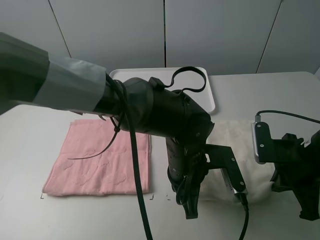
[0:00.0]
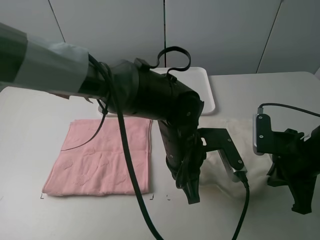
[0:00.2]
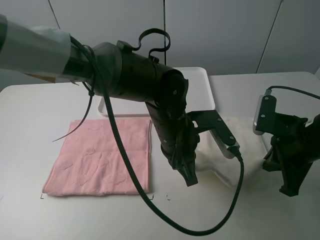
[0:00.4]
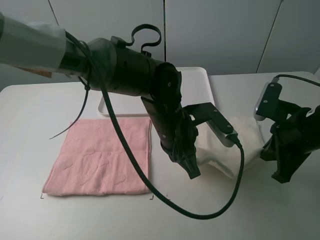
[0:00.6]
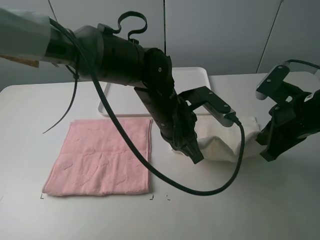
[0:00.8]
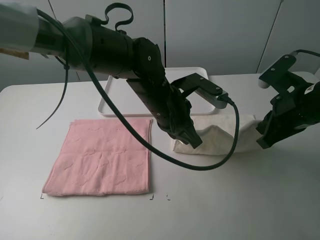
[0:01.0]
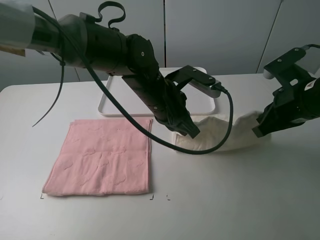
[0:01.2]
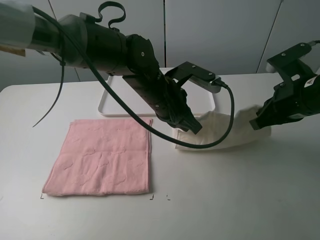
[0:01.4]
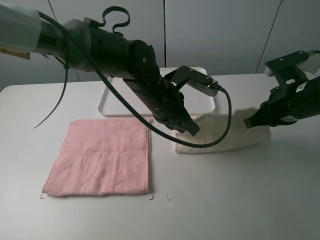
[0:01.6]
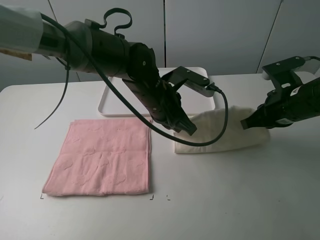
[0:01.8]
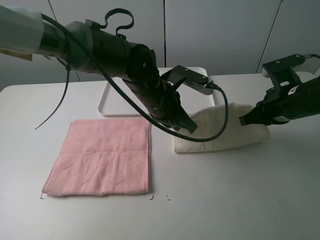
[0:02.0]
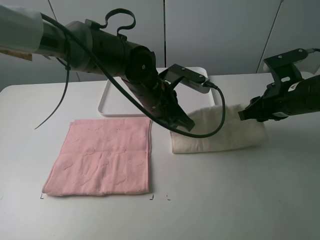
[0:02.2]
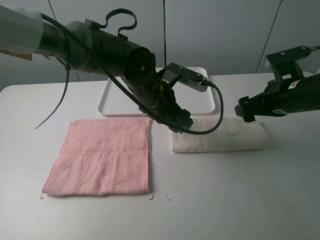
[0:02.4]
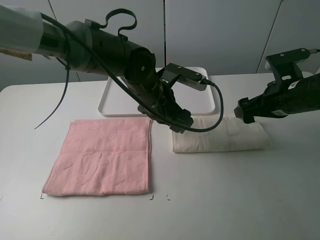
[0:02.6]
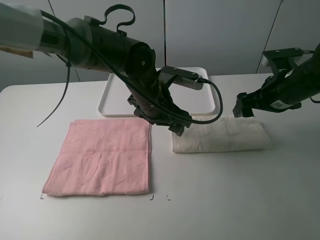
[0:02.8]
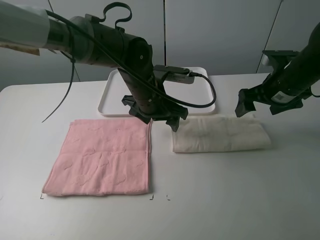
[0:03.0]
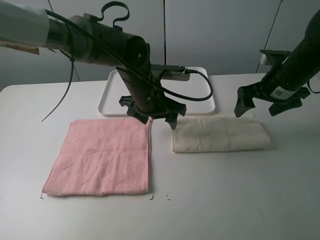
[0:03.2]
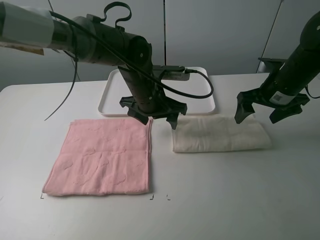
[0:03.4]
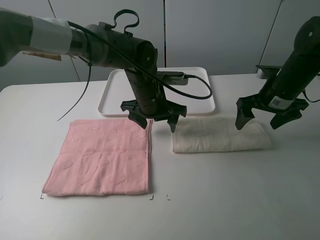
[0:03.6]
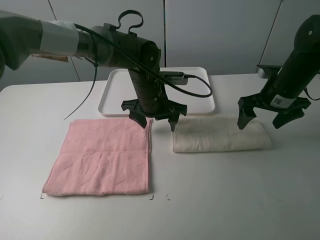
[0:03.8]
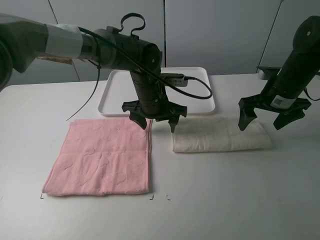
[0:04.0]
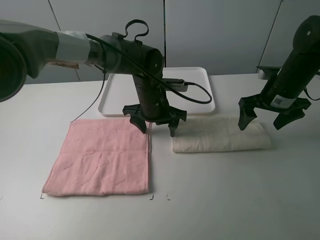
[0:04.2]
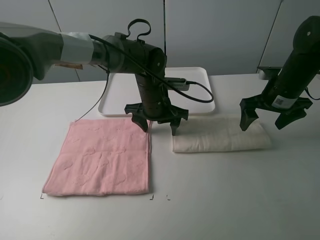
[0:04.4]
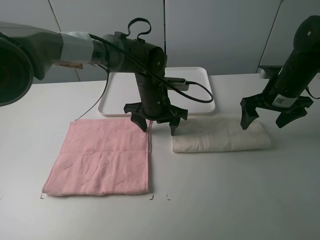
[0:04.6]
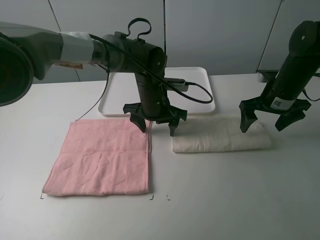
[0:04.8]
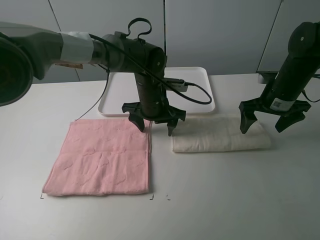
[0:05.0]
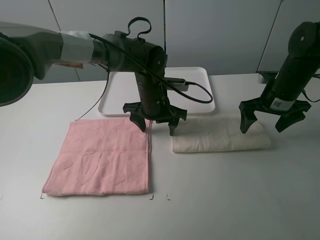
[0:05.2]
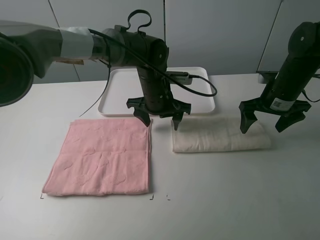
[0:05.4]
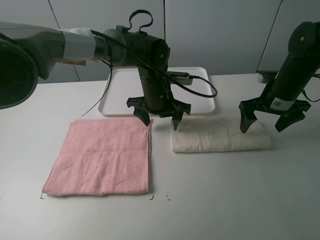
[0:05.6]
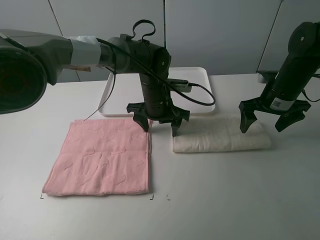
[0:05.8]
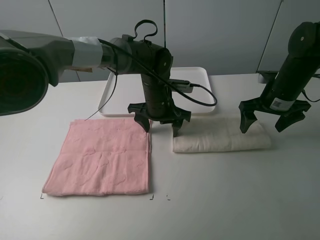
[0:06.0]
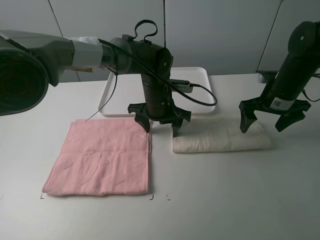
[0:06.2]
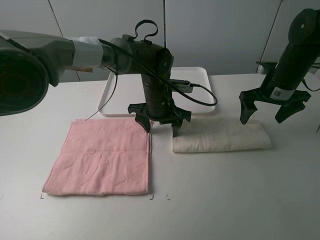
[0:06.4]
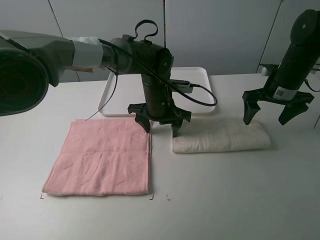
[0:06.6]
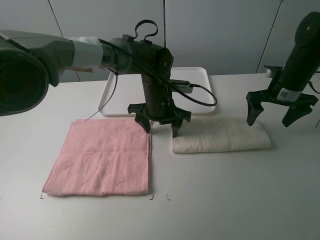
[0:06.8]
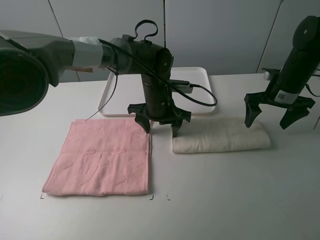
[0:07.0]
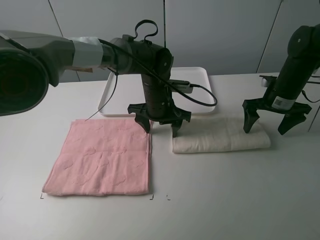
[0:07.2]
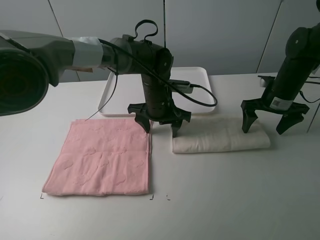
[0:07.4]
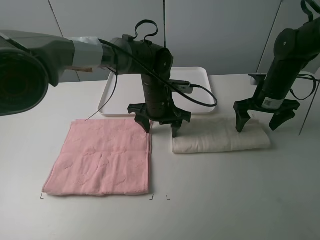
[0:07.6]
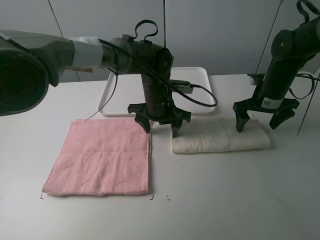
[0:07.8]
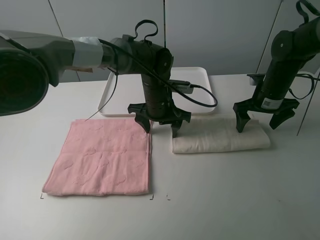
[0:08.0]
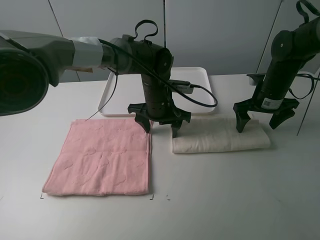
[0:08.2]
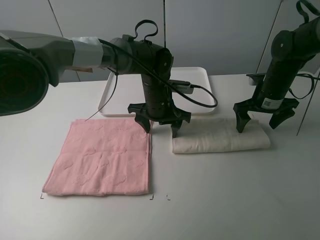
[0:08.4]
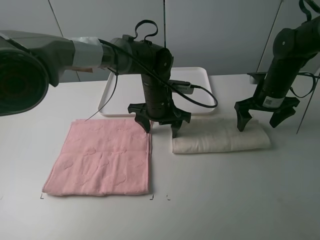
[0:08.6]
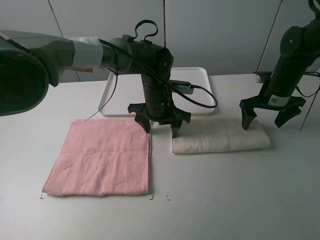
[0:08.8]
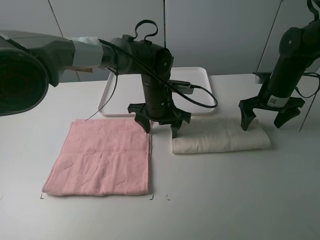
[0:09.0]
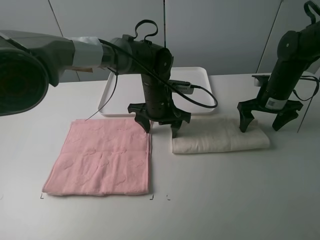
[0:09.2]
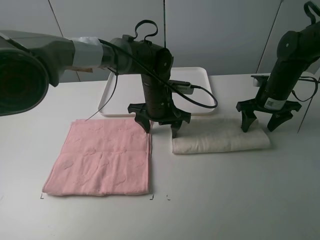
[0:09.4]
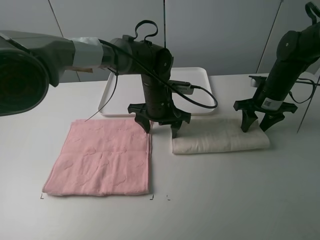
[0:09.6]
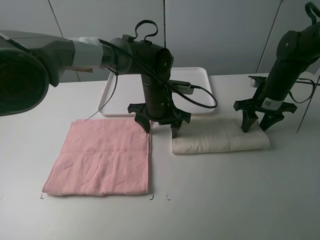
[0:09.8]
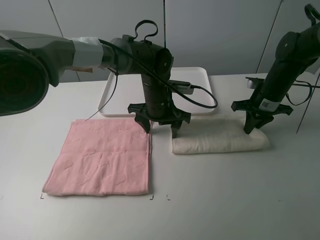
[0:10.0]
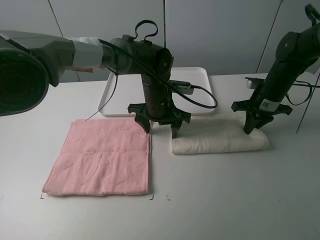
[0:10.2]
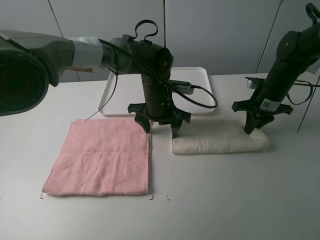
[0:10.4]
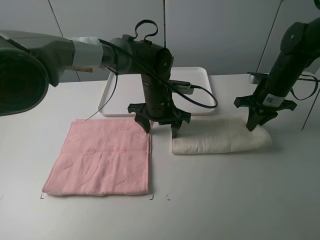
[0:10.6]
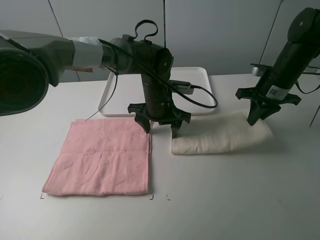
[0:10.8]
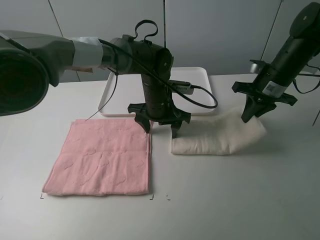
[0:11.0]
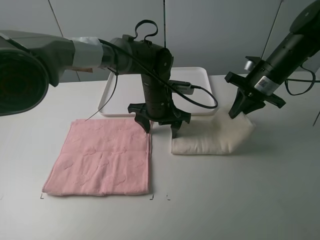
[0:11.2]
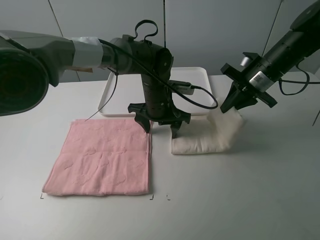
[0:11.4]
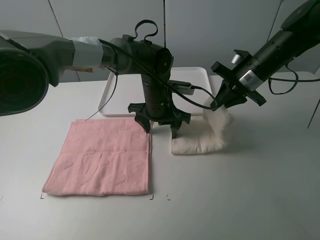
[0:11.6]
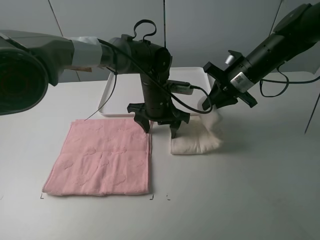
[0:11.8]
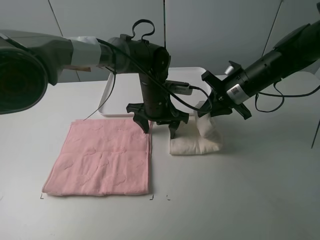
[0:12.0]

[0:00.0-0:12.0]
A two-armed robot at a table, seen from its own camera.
Task of the whole recording: fold one of the towels by two grippers and place it on the tray,then fold another towel by two grippers and place it on the folded towel.
Step, 0:00.0 to 0:02.4: Fold the white towel upwards with the left gripper.
Step, 0:02.6 to 0:08.0: Press the white towel with the left gripper.
Step, 0:08.2 to 0:10.2: Grasp the white towel with the right gripper.
0:00.0 to 0:01.6: The right gripper goes roughly 5 cm forward. Meanwhile the left gripper moves forward and upward, some 10 cm.
0:01.6 to 0:03.0: The right gripper heads forward, covering some 5 cm, and opens. The left gripper opens.
0:03.0 to 0:04.4: The left gripper moves approximately 5 cm.
0:04.4 to 0:09.0: The grippers stay close to where they were, moving slightly.
0:09.0 to 0:10.4: The right gripper closes.
0:10.4 to 0:12.0: The right gripper moves to the left, roughly 10 cm.

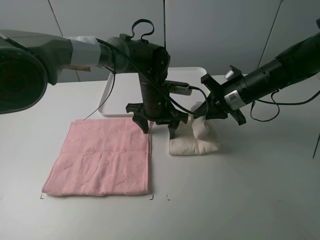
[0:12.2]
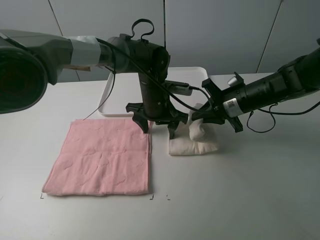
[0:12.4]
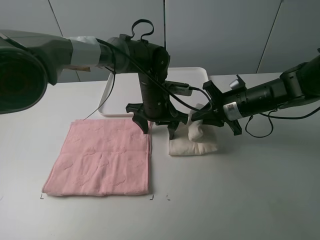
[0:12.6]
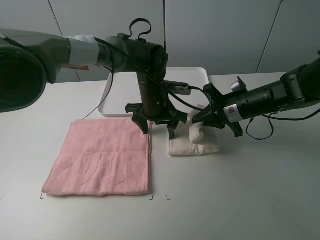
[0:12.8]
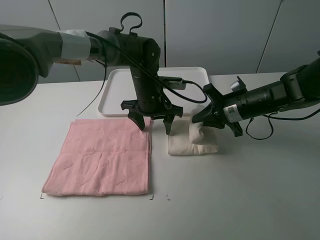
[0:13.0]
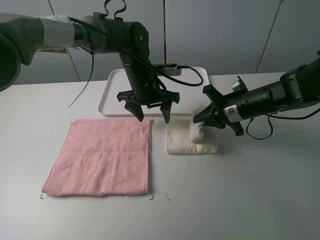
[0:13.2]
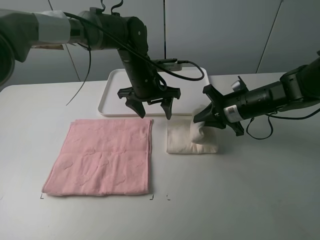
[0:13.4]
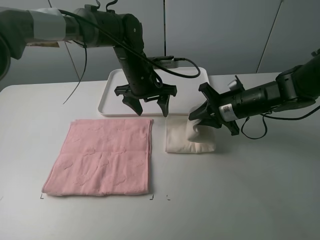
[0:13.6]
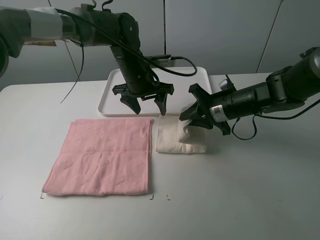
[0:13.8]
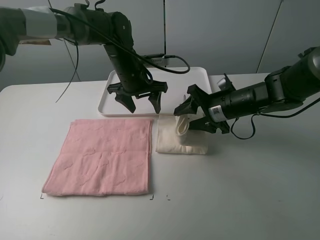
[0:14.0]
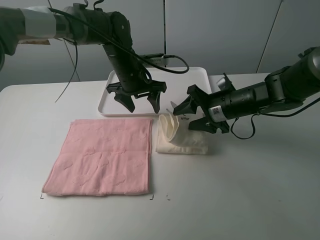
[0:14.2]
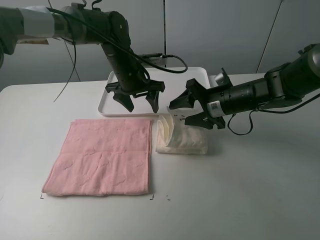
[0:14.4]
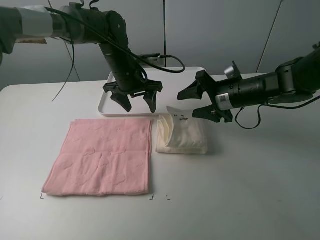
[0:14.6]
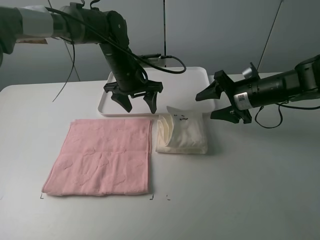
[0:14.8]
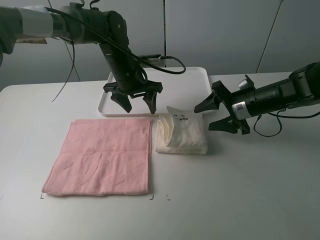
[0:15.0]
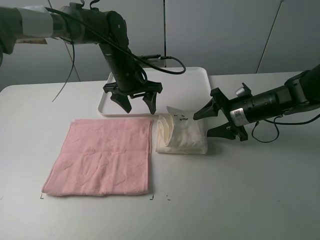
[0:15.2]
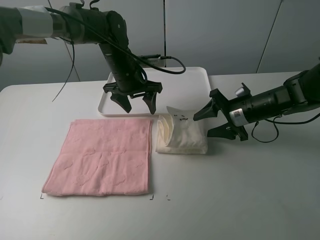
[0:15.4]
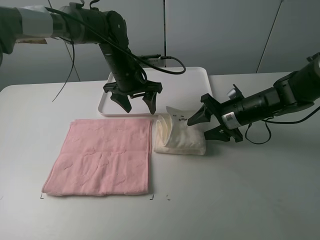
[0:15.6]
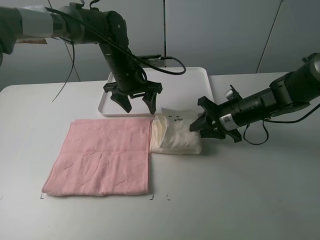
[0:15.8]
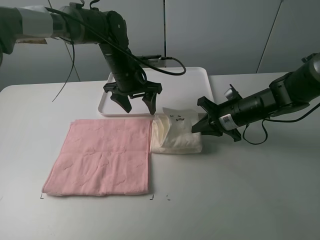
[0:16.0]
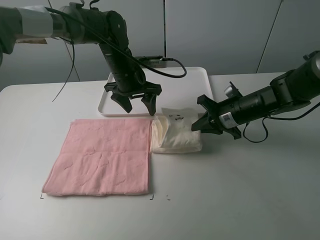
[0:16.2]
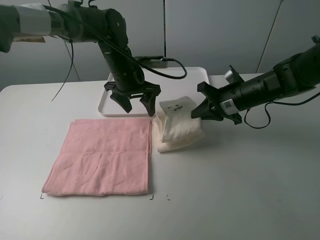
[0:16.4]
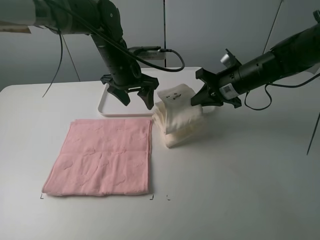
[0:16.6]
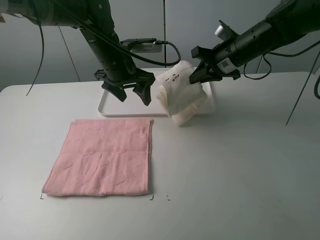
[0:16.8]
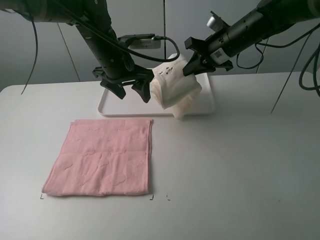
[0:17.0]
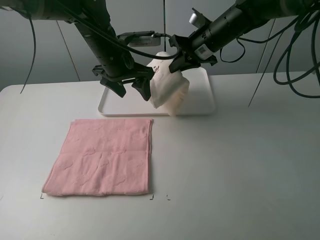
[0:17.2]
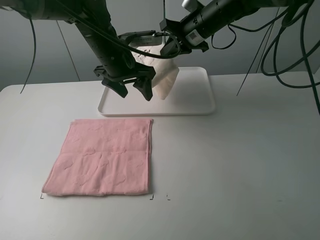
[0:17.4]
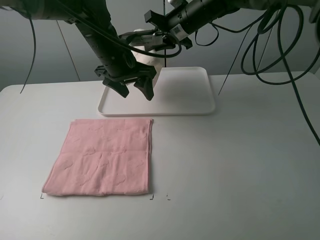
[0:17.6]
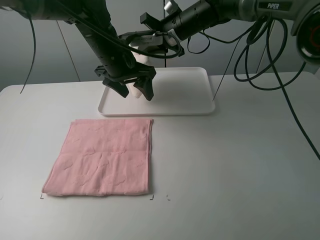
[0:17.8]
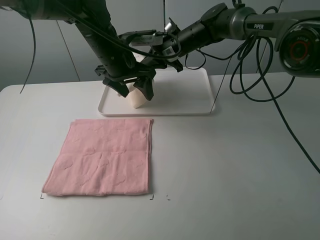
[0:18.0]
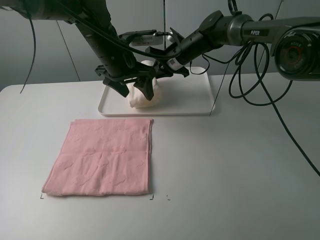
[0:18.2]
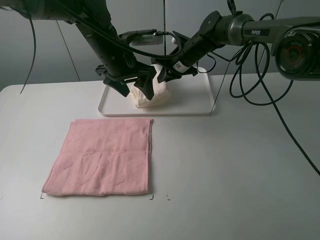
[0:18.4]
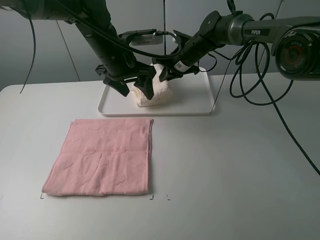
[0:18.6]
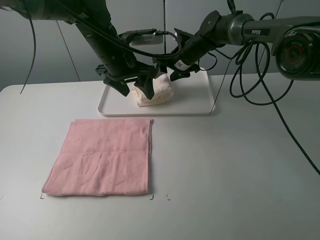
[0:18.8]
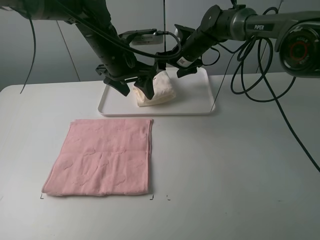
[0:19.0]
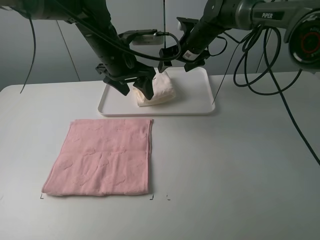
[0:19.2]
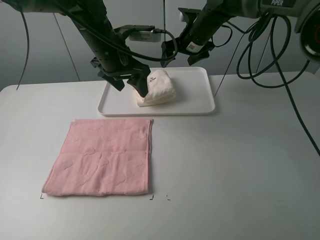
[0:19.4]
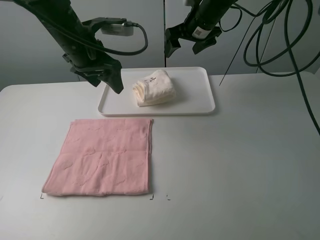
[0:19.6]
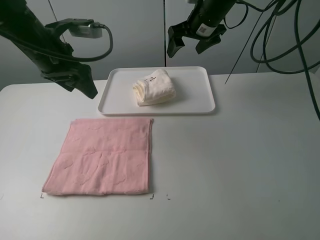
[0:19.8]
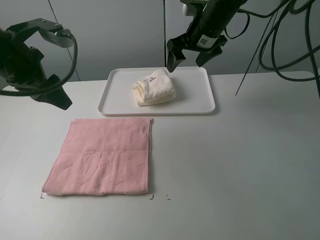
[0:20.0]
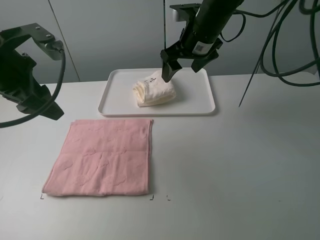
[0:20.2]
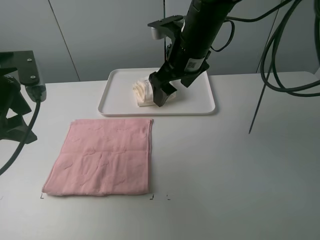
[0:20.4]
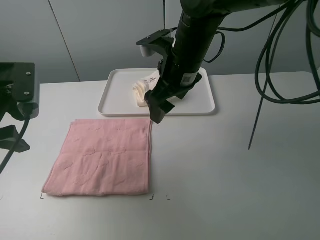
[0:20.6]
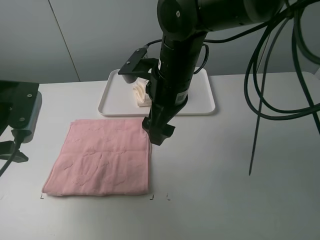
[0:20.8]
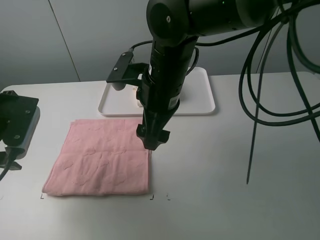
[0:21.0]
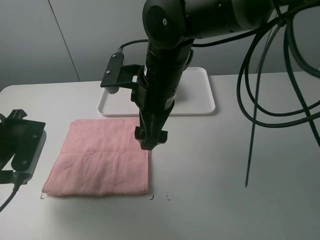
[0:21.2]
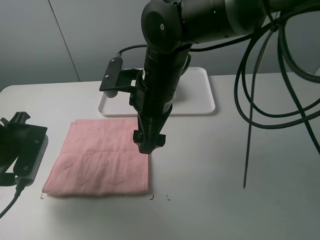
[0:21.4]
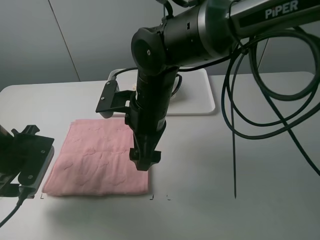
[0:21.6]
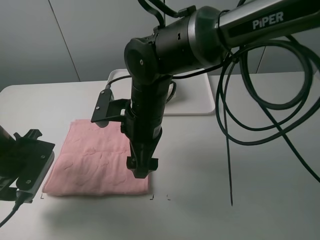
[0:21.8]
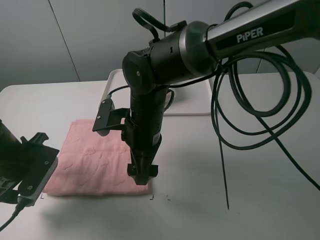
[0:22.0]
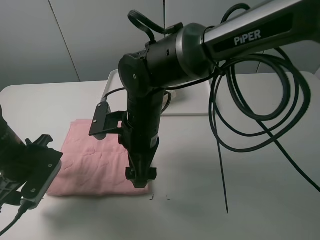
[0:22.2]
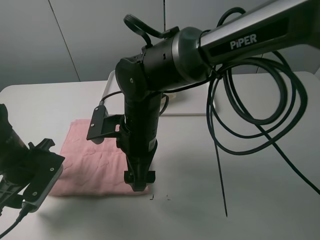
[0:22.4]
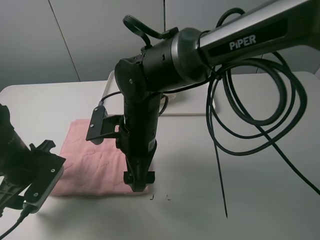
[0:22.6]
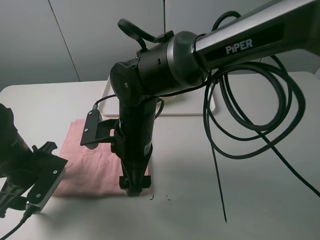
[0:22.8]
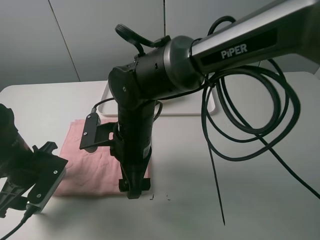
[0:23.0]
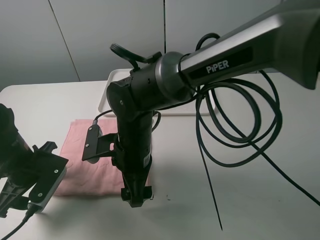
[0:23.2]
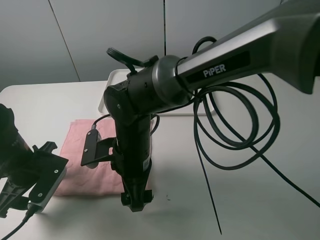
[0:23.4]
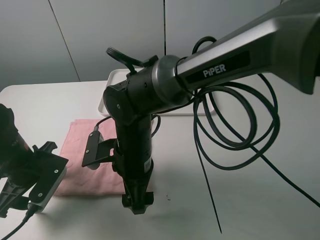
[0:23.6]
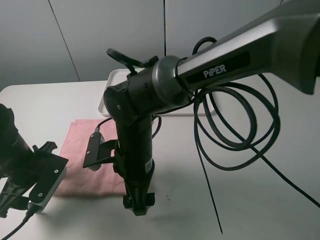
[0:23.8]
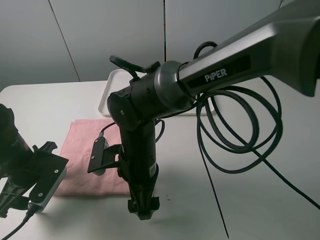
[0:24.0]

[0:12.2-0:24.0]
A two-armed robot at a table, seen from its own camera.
Task of the whole recording: fold one of the towels by two grippers and place it on the tray,then fold another towel by two grippers and place it on the folded towel.
Step, 0:12.2 to 0:14.4: Fold the white towel from right to left with right gripper.
Step, 0:14.6 to 0:16.0: Grasp the pink towel with the right gripper.
Step, 0:16.2 to 0:19.0: Move the white towel to the plate with the right gripper.
0:12.2 to 0:13.6: The left gripper shifts by roughly 5 cm.
0:13.6 to 0:15.2: The right gripper opens up.
0:15.2 to 0:16.6: The right gripper shifts some 5 cm upward, and closes.
0:16.6 to 0:18.2: The right gripper moves forward and to the left, about 15 cm.
0:18.2 to 0:19.6: The left gripper goes about 5 cm to the left, while the right gripper goes approximately 10 cm upward, and opens.
0:19.6 to 0:21.0: The two grippers go about 20 cm backward and to the left.
0:21.0 to 0:22.6: The two grippers go some 10 cm downward.
